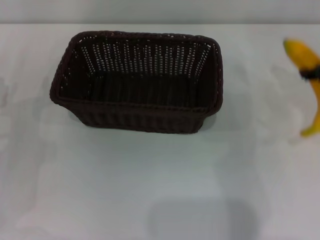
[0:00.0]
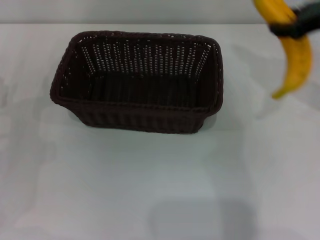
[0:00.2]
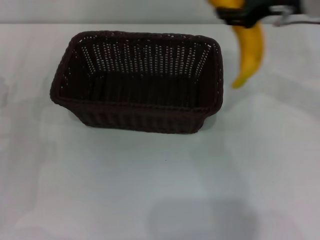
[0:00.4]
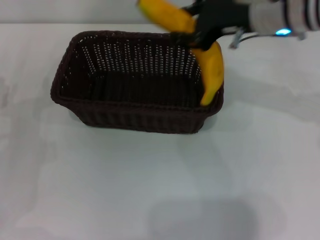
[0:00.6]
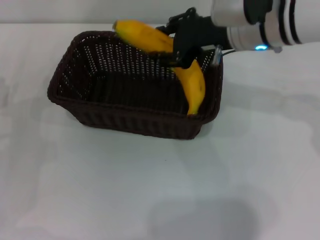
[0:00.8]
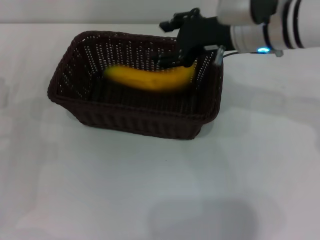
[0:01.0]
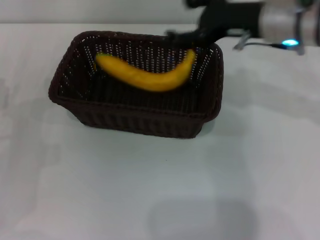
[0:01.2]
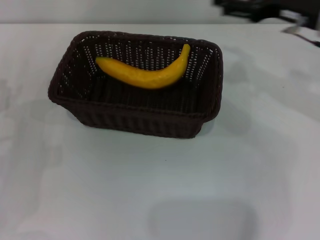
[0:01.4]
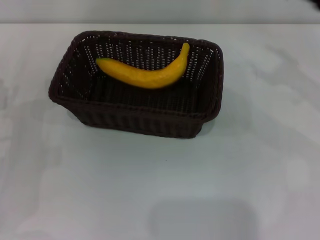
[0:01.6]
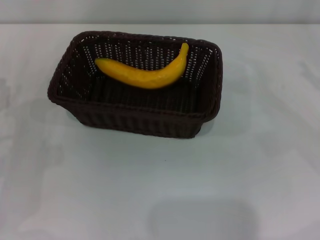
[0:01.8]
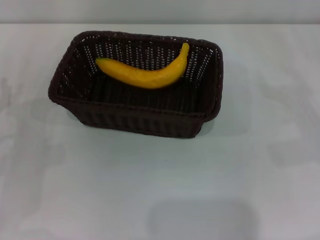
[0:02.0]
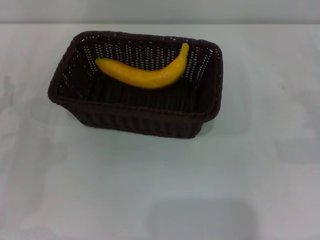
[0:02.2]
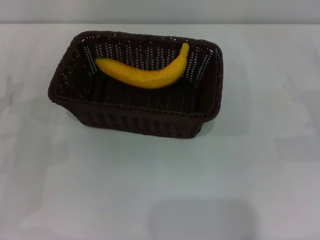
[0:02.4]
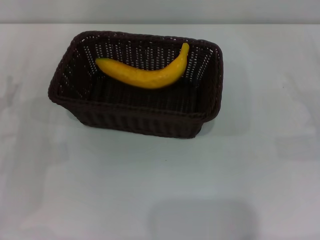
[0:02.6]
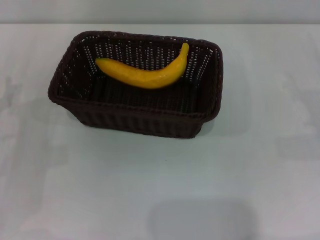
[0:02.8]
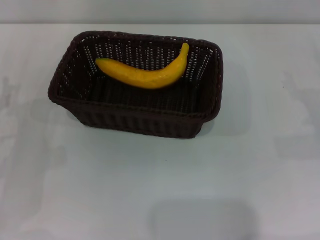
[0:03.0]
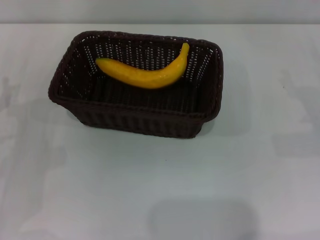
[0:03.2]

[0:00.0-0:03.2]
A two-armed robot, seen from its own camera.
Step, 0.2 to 1.2 s: Place the banana into the dark basket with the right gripper.
0.0 to 1.6 s: The right gripper travels to the left and back again, some 15 cm each way, and opens its fingers.

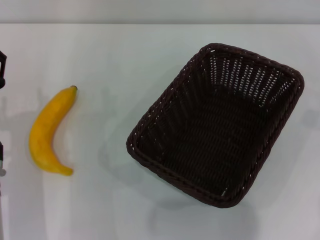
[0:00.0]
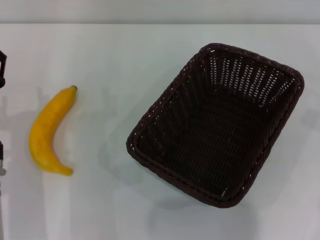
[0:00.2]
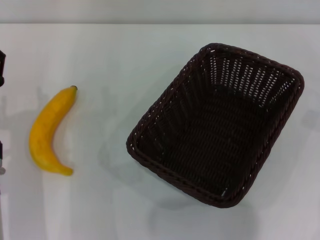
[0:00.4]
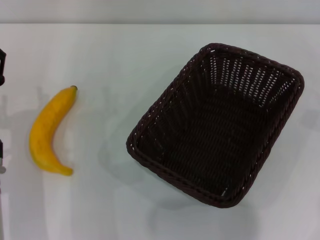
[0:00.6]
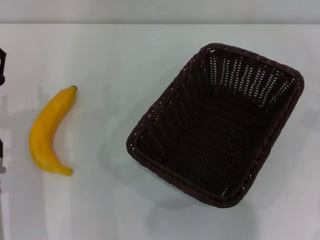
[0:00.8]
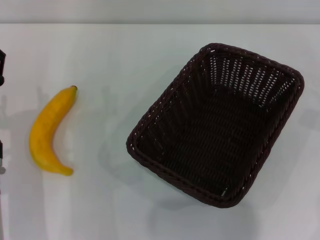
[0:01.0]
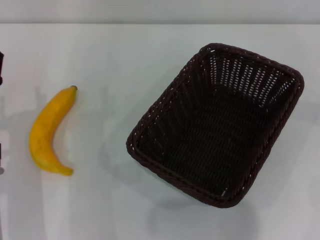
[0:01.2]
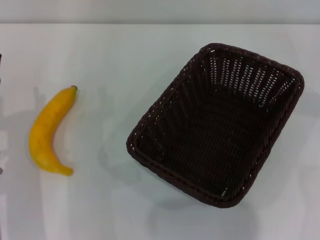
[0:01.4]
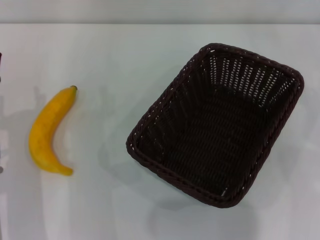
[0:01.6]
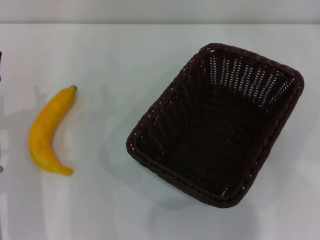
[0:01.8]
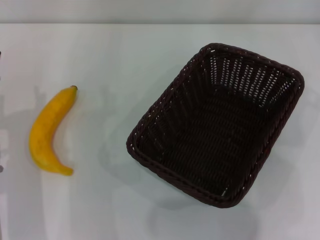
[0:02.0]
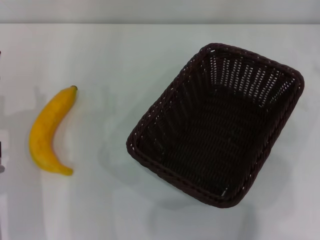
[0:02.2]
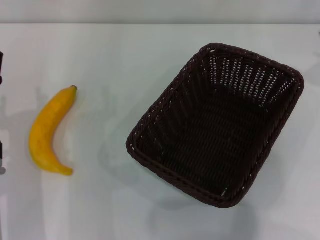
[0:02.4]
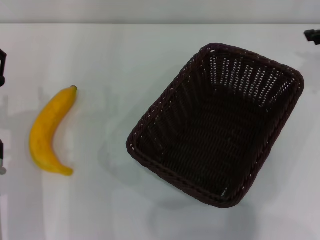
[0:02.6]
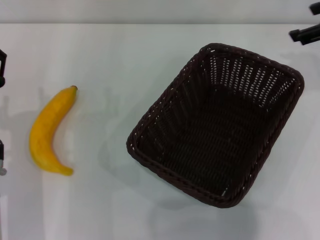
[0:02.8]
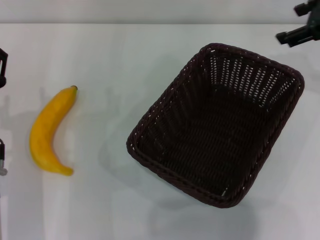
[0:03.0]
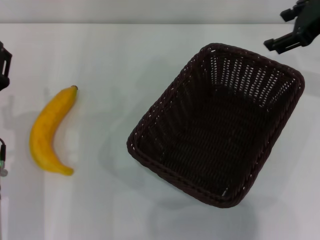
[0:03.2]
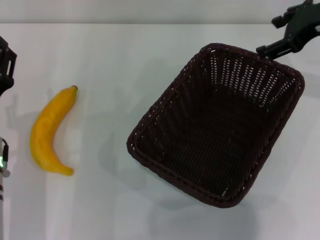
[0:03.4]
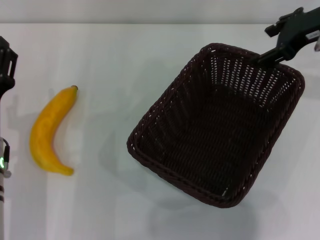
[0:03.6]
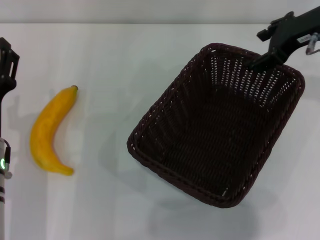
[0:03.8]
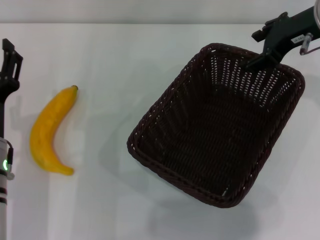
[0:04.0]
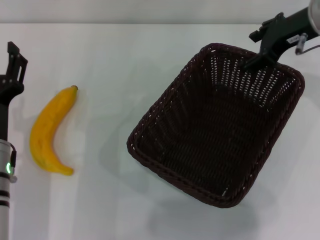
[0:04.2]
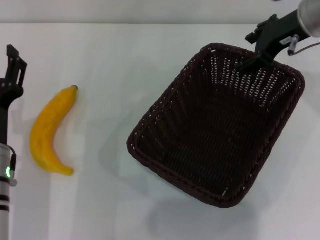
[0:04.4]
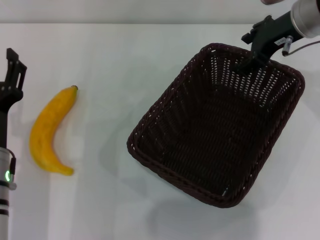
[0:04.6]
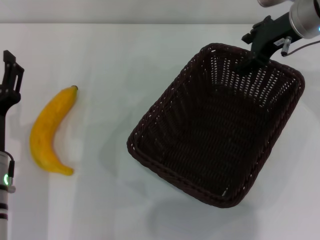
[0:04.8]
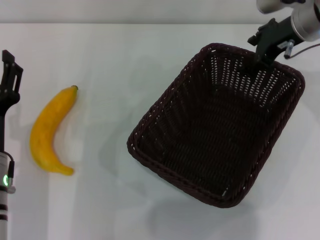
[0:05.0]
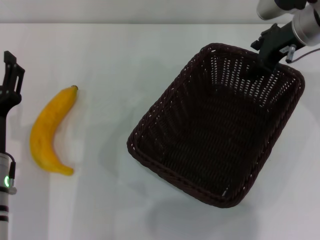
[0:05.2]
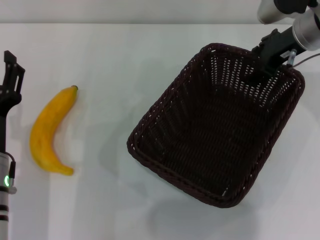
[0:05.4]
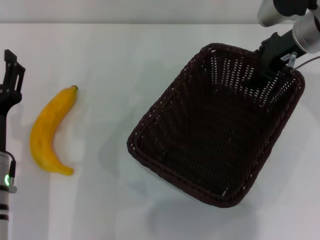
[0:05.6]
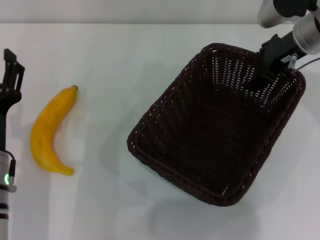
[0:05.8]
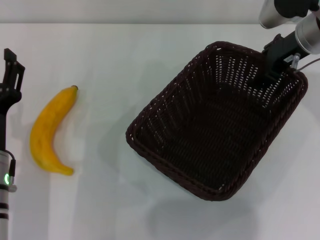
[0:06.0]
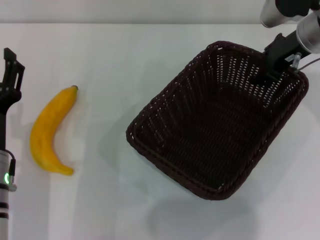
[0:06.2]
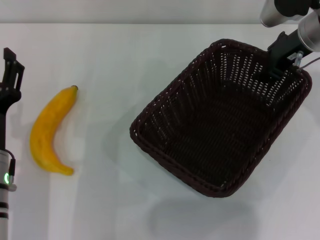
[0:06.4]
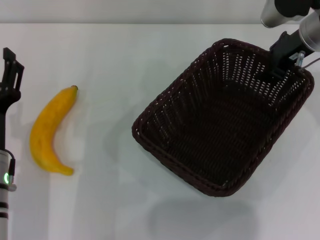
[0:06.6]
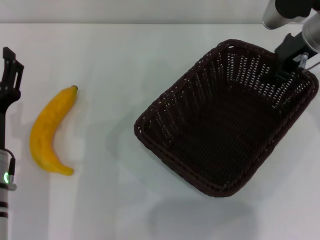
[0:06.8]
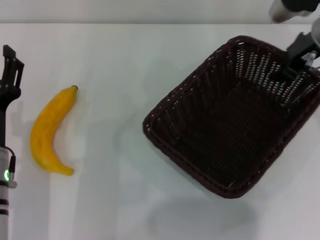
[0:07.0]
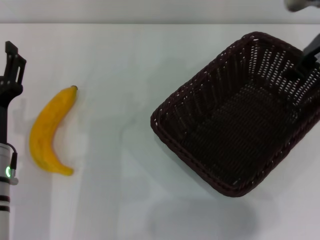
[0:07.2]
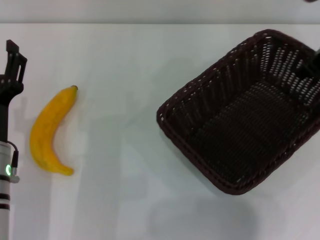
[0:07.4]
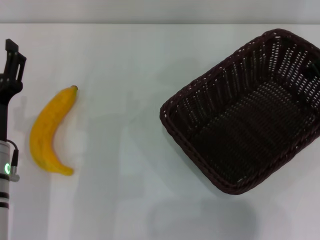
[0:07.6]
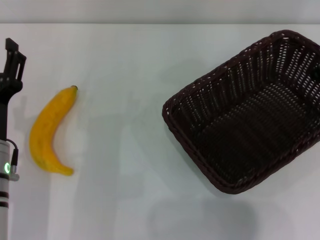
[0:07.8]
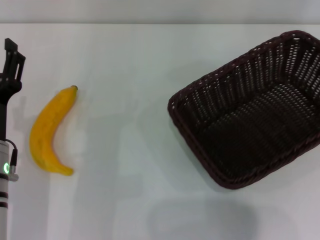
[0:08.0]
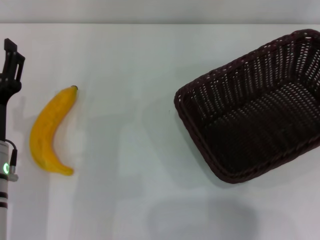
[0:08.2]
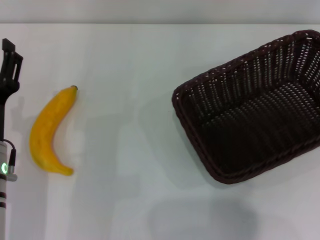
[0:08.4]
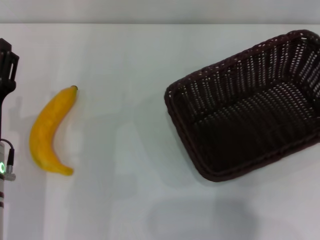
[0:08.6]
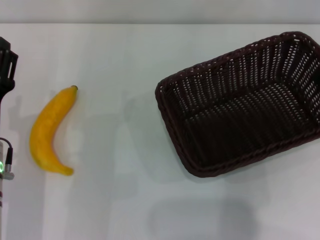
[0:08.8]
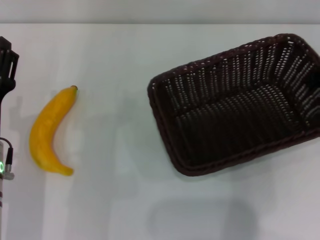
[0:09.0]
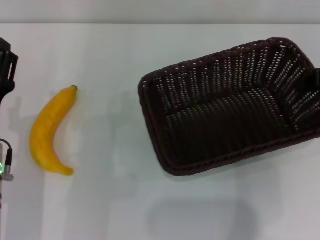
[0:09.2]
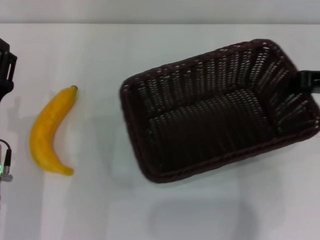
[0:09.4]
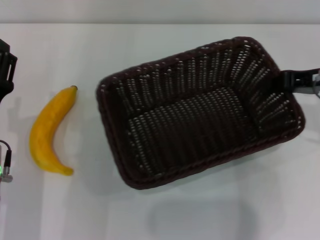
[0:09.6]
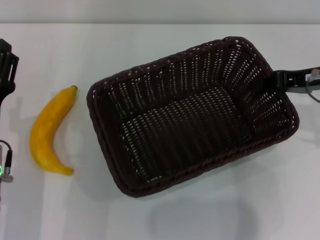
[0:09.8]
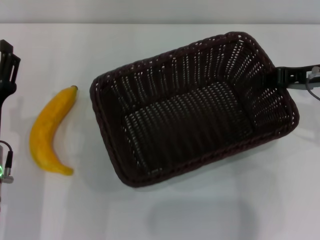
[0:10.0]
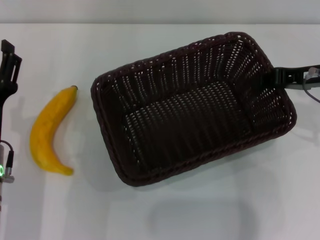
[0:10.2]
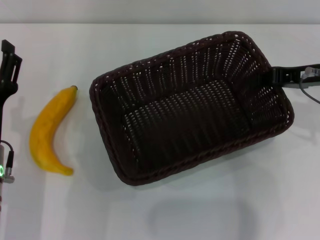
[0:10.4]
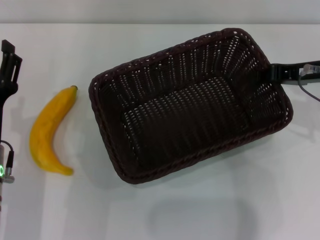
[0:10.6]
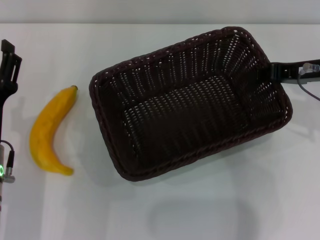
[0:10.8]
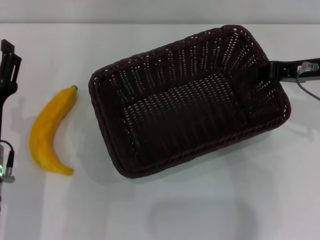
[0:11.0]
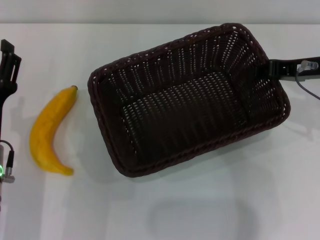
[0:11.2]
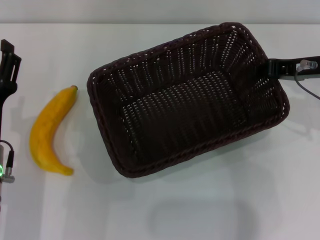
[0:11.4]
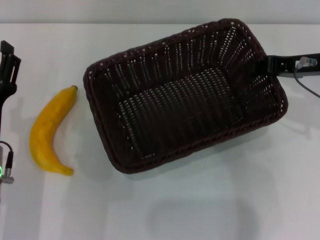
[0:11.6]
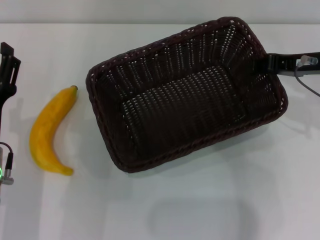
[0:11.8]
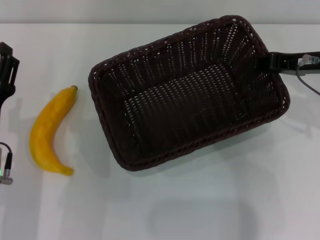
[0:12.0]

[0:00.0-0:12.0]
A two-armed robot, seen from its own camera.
Step, 0.0 to 7.0 s: Pick up the dark basket with the right gripper.
1.6 to 3.0 s: The right gripper shifts roughly 20 cm to the left and upward.
3.0 to 4.4 s: The right gripper shifts approximately 5 cm to the left.
4.4 to 6.0 s: The grippers make only small movements.
6.0 to 7.6 s: The right gripper moves about 5 cm, and closes.
7.6 to 9.0 s: The right gripper travels to the right by some 5 cm.
9.0 to 10.4 s: The right gripper goes roughly 5 cm to the left.
10.4 to 12.0 s: There are only small adjustments of the grippers.

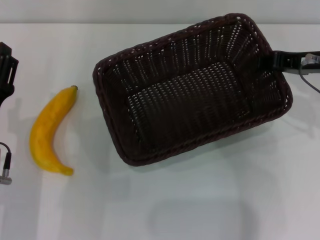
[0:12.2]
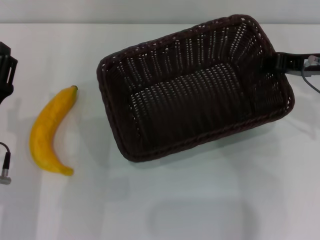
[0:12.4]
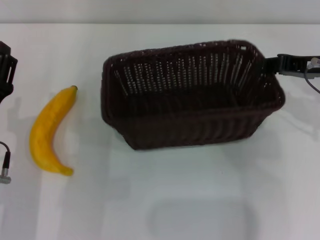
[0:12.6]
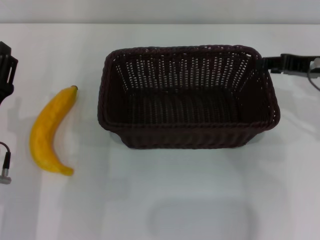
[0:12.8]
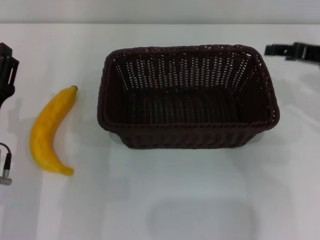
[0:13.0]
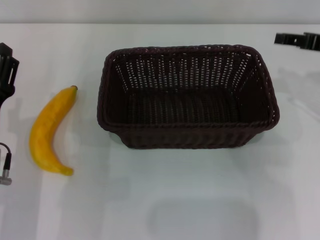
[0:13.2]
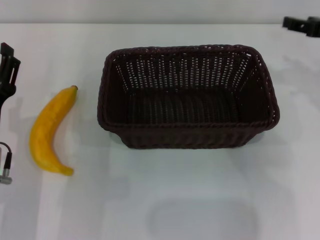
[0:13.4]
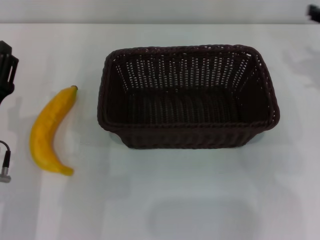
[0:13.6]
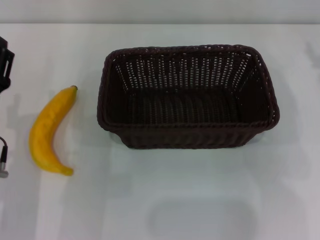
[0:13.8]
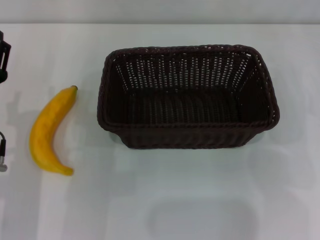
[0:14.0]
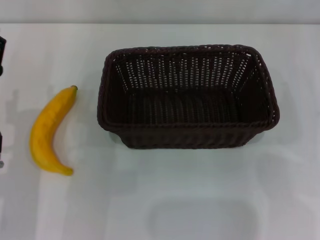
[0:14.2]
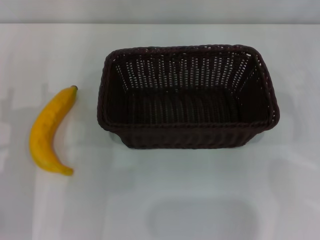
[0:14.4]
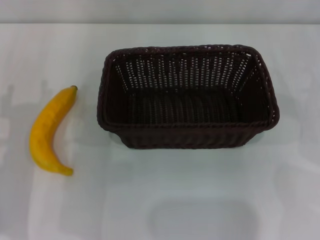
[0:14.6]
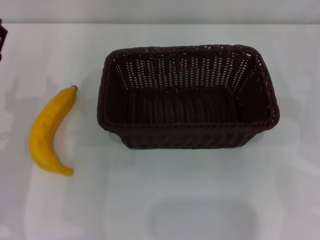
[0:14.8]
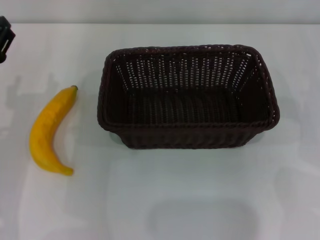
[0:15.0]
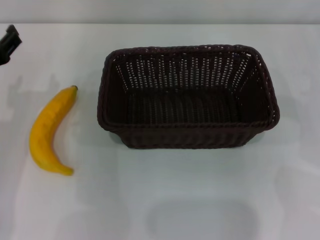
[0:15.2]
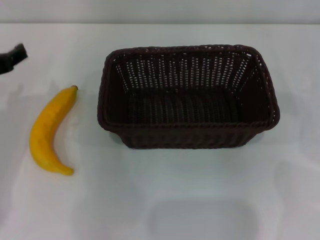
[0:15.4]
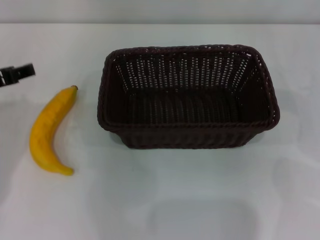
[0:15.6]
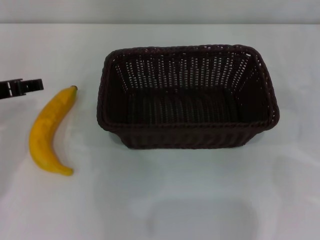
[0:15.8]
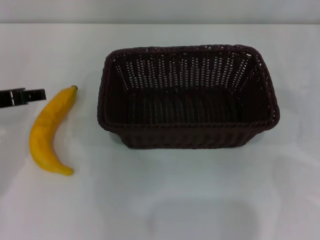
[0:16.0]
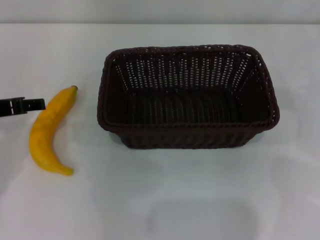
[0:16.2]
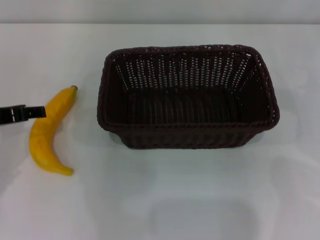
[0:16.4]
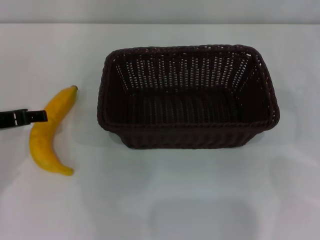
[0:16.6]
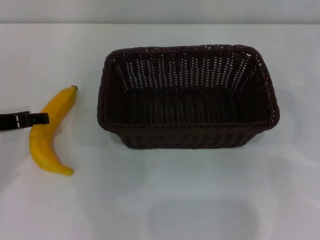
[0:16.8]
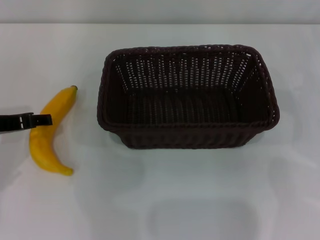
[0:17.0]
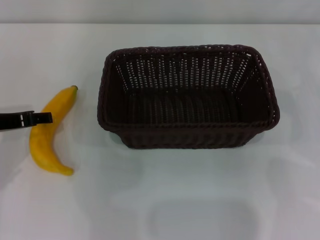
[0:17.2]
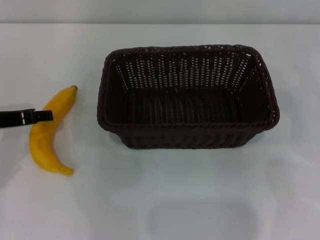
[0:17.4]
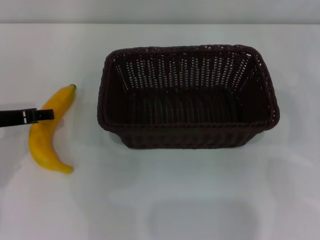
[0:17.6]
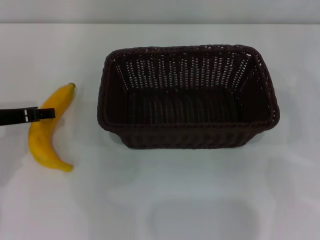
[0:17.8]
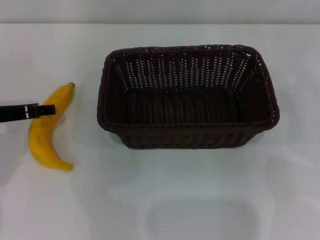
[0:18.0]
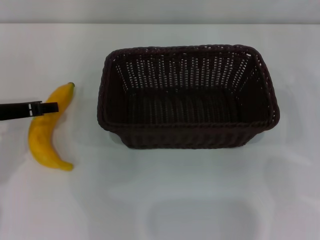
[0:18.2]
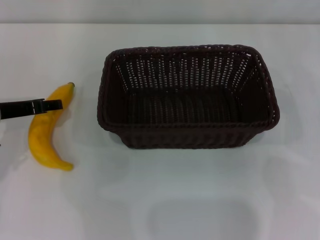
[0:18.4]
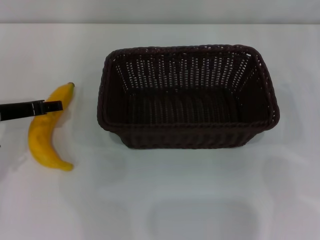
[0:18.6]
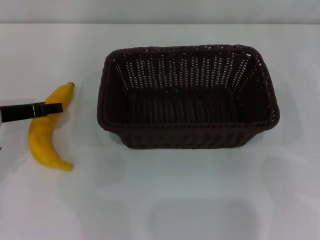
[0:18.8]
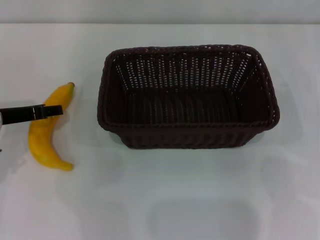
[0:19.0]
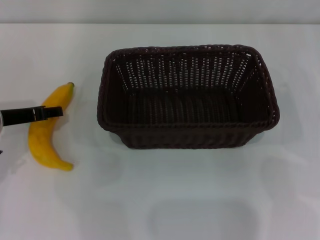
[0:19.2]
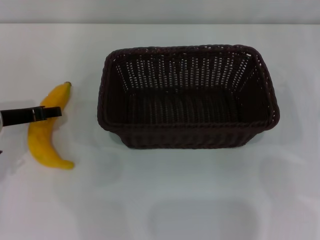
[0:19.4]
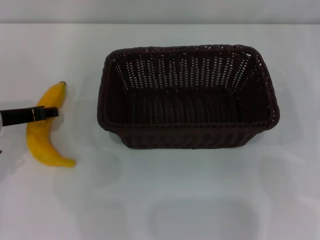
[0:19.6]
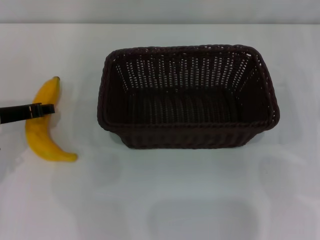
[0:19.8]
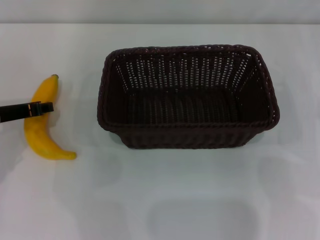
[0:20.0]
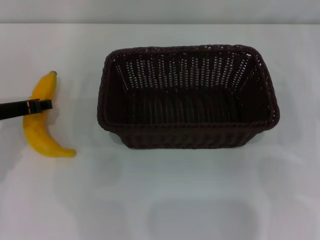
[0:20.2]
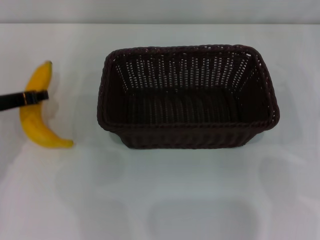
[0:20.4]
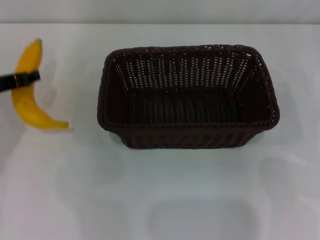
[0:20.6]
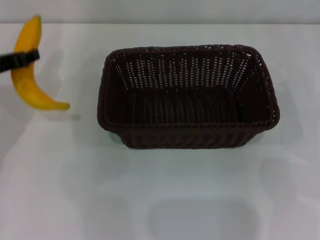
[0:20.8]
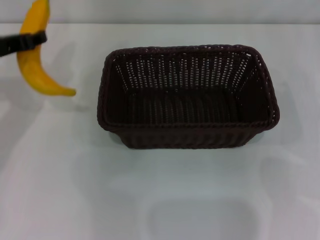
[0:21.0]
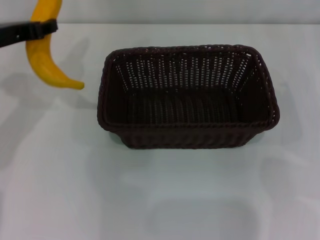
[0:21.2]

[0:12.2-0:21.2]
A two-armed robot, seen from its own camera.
Step, 13.2 to 20.6 s: Pick up the banana with the left gripper.
12.2 to 13.8 s: The right gripper travels to the right by some 10 cm, and opens.
13.8 to 15.2 s: The left gripper goes some 5 cm upward.
16.6 to 18.2 s: The grippers make only small movements.
18.2 to 19.8 s: The left gripper closes.
19.8 to 21.2 s: The left gripper travels upward by roughly 10 cm.
